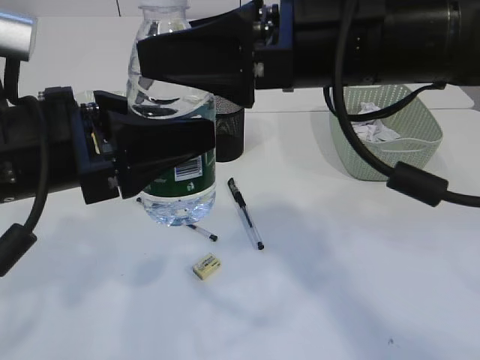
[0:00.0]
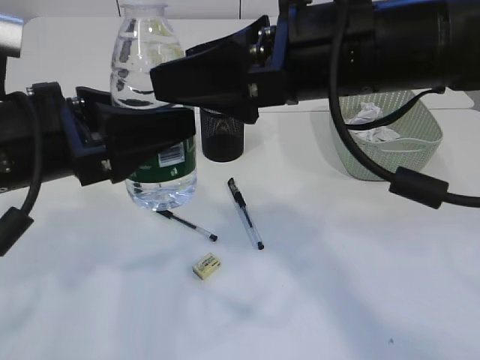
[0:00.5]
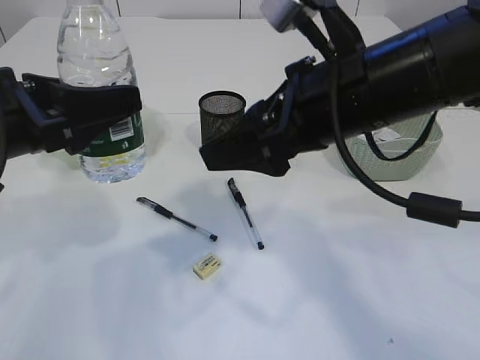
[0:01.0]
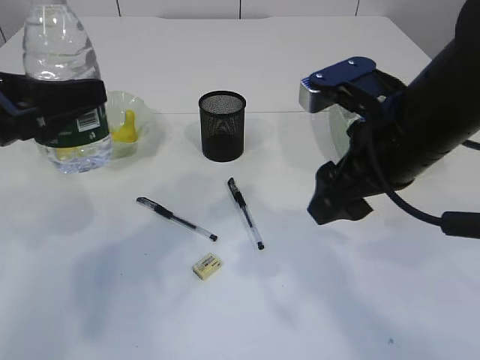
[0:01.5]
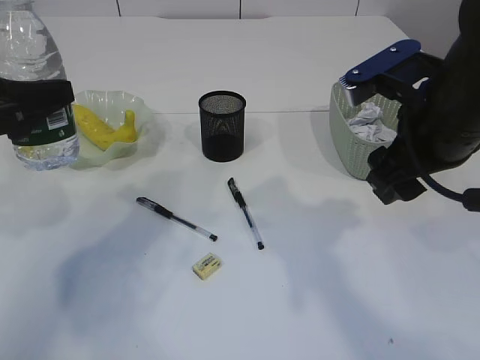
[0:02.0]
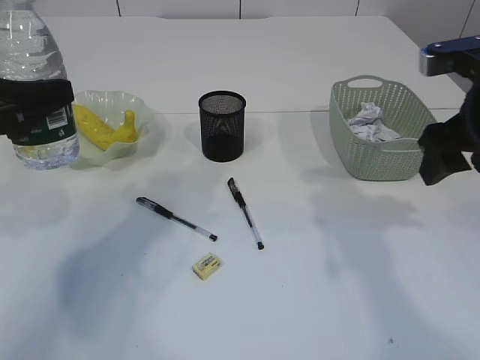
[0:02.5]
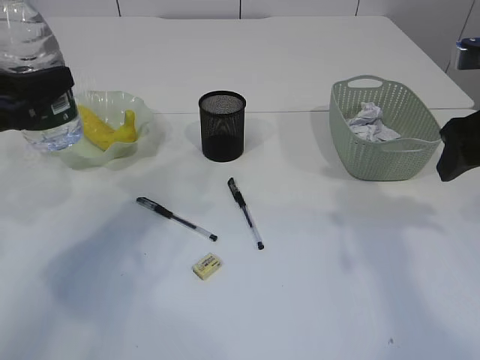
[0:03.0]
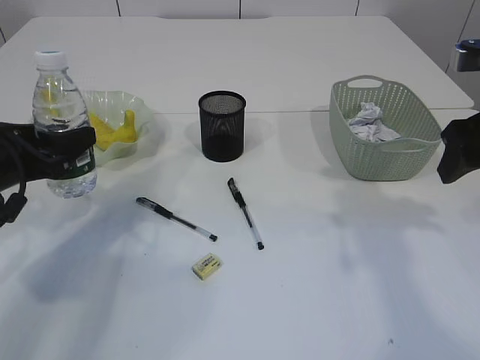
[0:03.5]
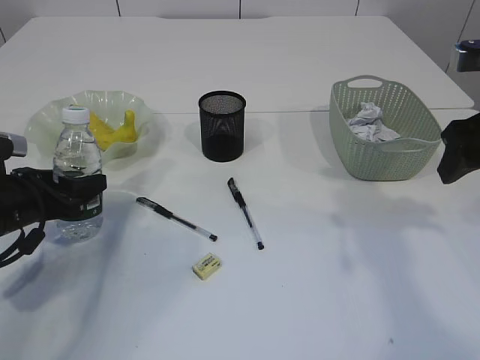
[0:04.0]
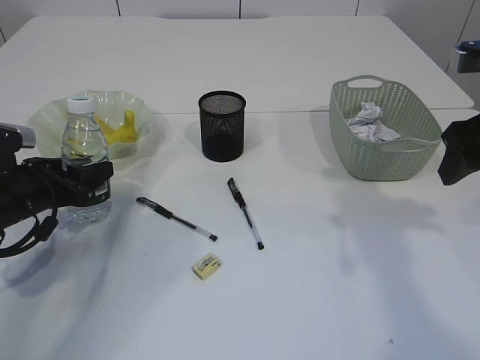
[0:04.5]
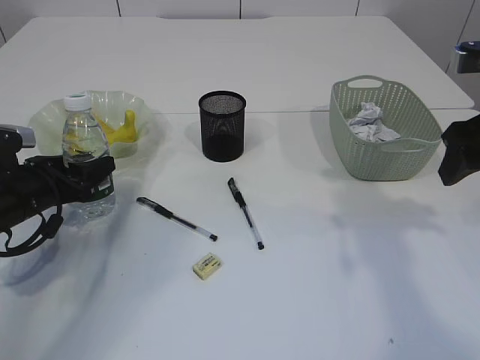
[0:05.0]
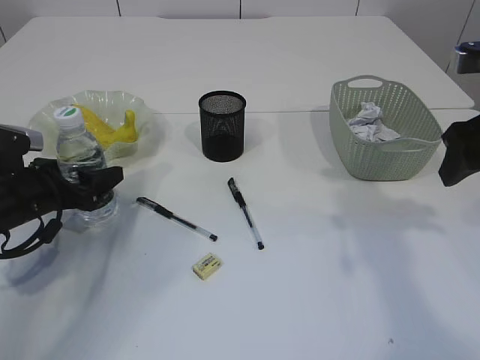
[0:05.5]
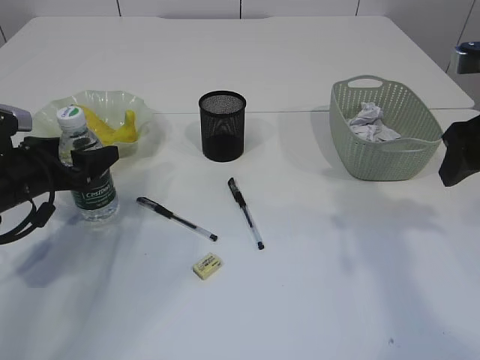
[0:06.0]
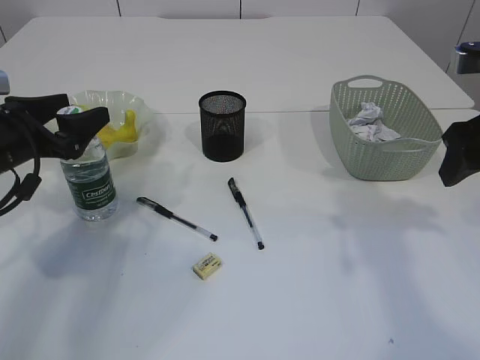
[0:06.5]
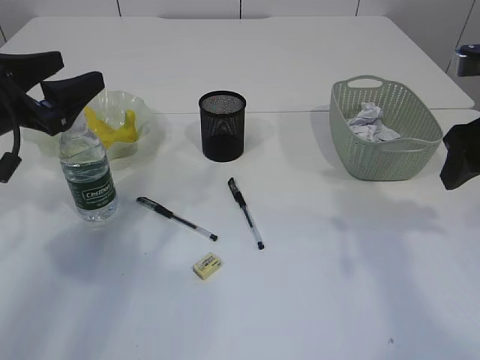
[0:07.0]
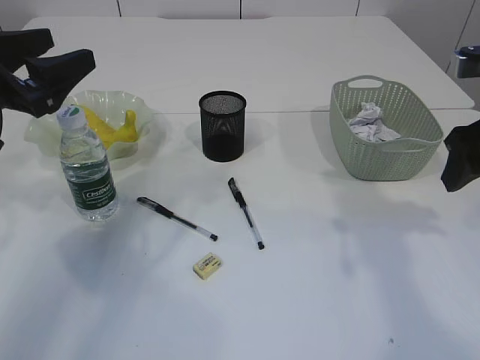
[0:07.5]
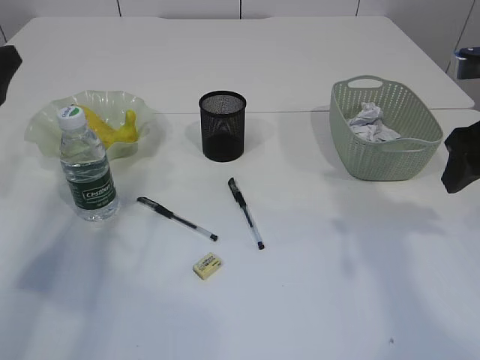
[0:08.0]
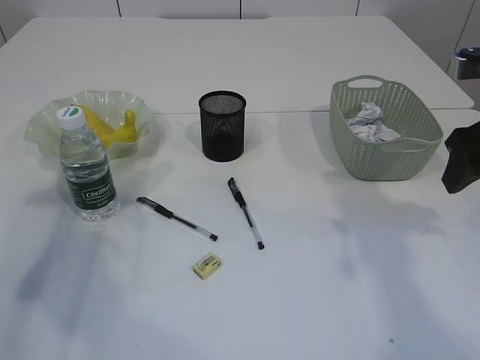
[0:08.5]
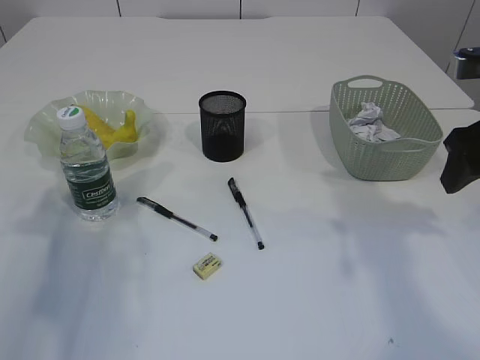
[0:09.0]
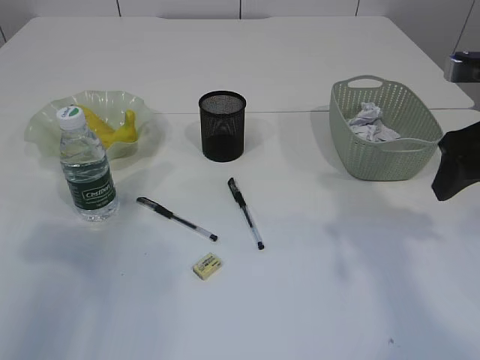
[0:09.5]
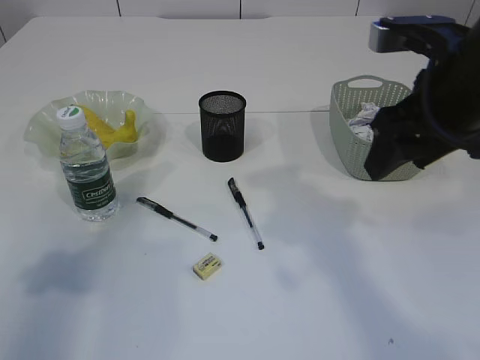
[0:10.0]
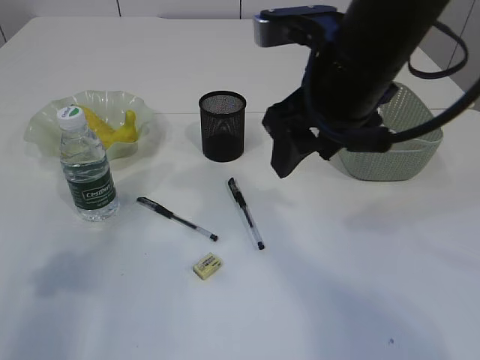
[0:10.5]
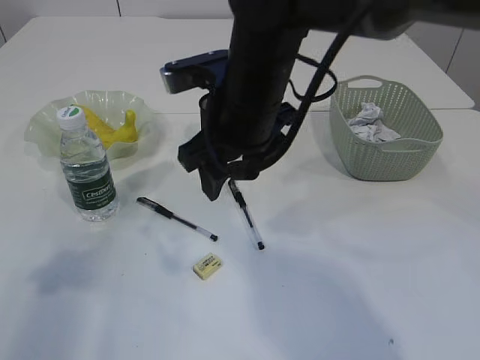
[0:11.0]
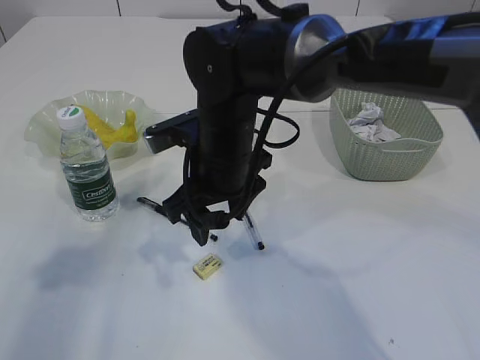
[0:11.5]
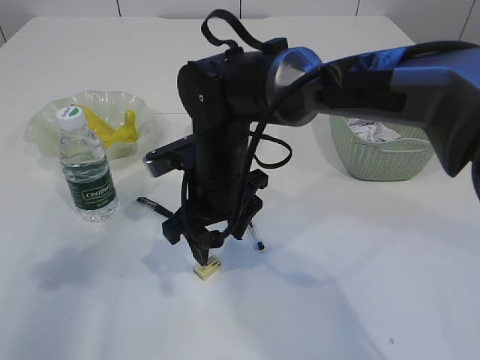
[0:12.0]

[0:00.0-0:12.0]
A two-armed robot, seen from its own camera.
Step, 1.0 to 7.0 s: Place the bottle.
0.0 to 2.0 s: The left gripper moves to the left and forward, roughly 15 cm; the right gripper heads to the right and downward, covering about 10 cm.
2.0 to 4.0 s: The left gripper moves downward, approximately 15 cm, while the right gripper heads to the right, covering some 10 cm.
4.0 to 6.0 s: The left gripper opens its fingers.
6.0 to 8.0 s: The left gripper heads upward, covering some 10 cm.
8.0 to 10.0 s: The left gripper travels backward and upward by some 10 cm; the right gripper goes about 10 cm to the left.
10.0 to 12.0 s: The right gripper goes about 25 cm to the left and downward.

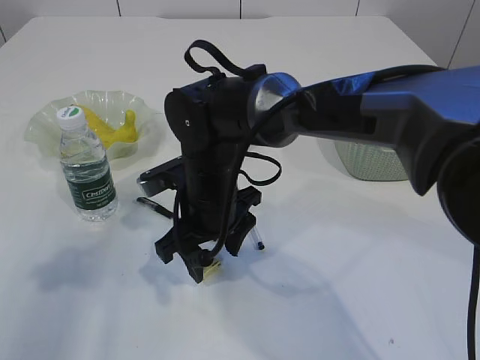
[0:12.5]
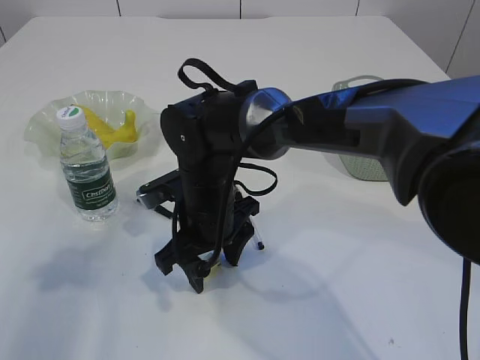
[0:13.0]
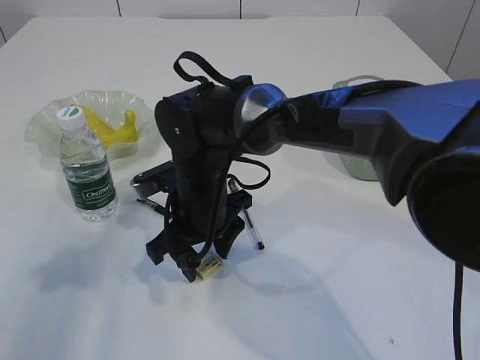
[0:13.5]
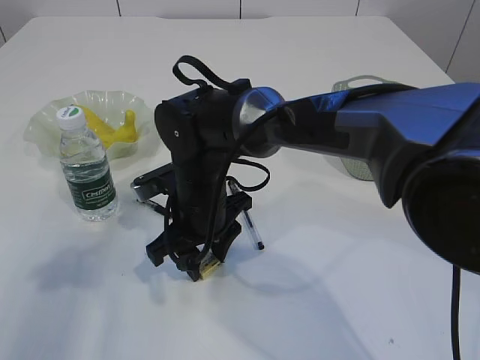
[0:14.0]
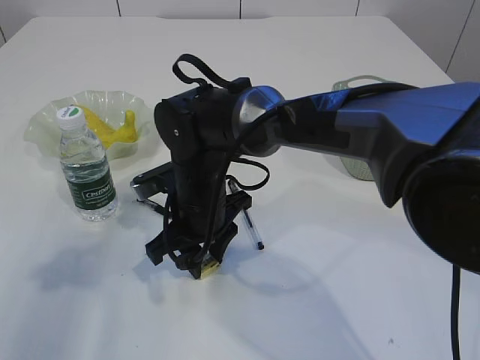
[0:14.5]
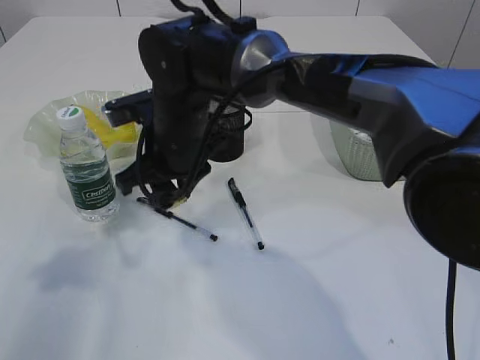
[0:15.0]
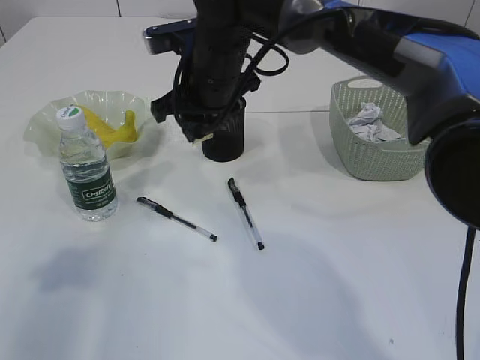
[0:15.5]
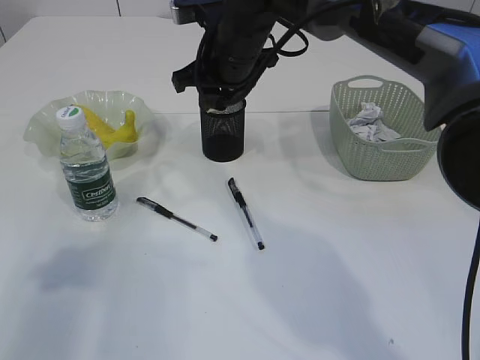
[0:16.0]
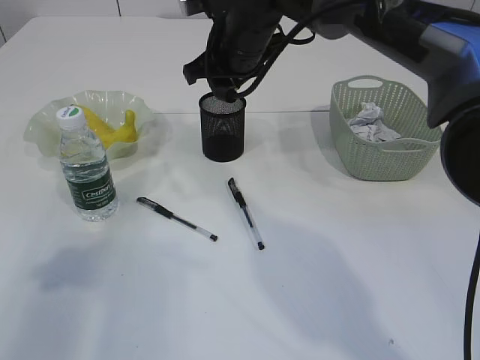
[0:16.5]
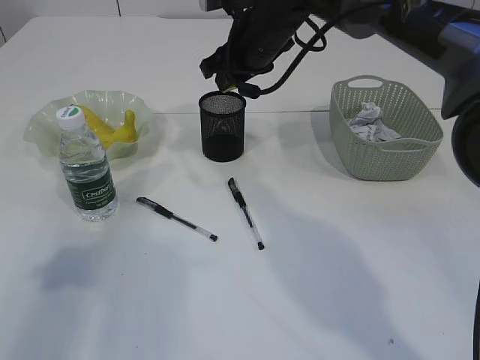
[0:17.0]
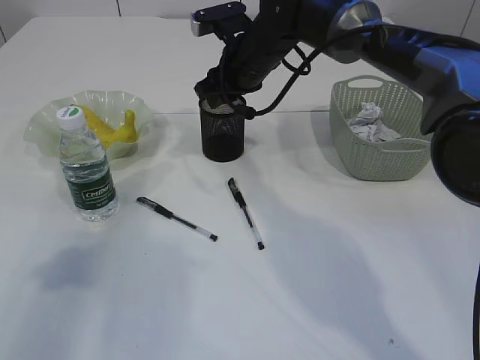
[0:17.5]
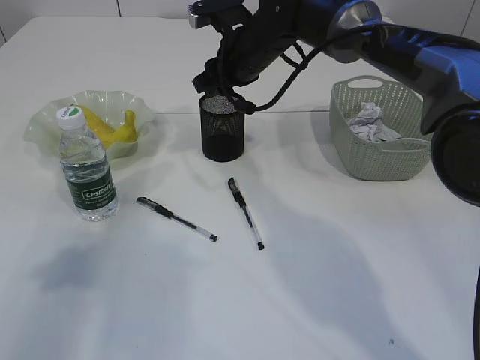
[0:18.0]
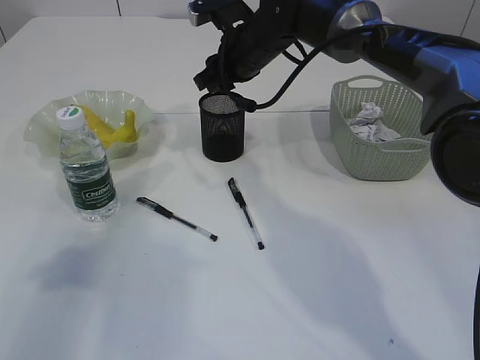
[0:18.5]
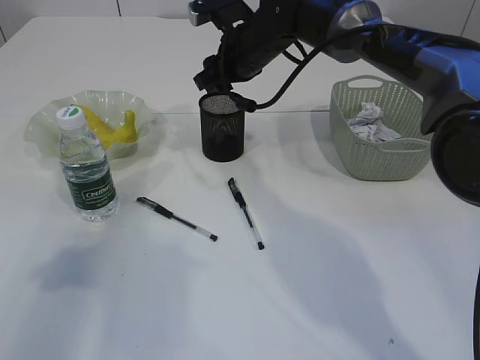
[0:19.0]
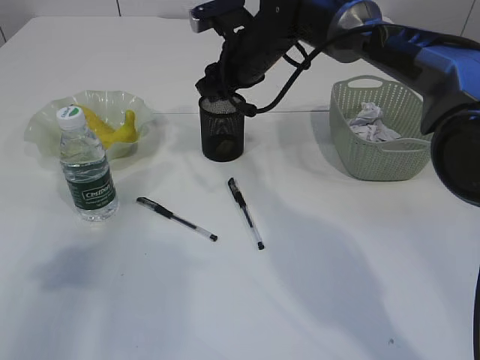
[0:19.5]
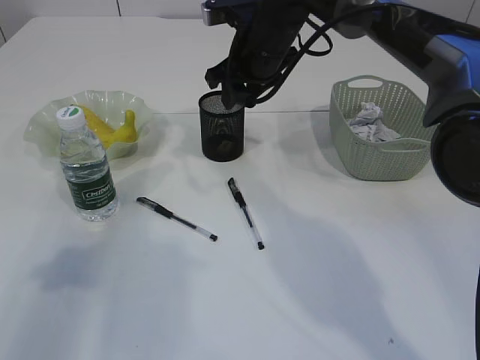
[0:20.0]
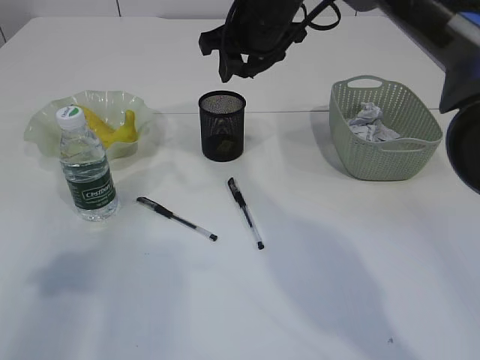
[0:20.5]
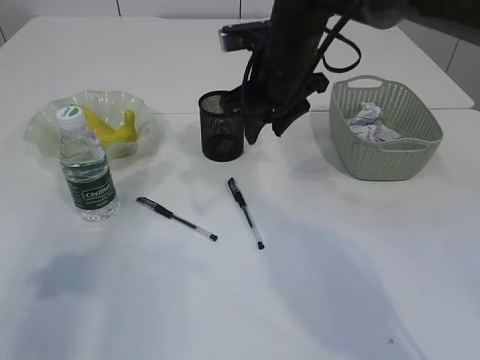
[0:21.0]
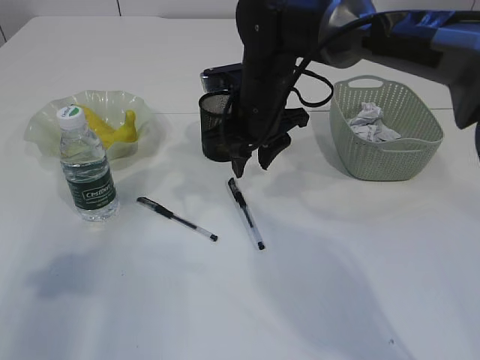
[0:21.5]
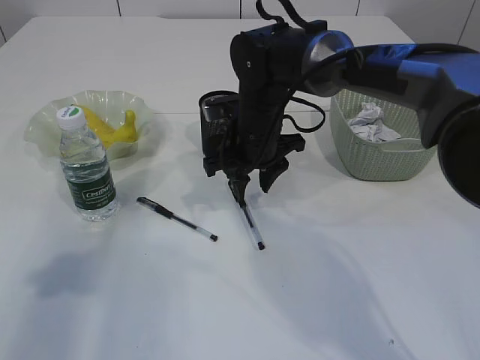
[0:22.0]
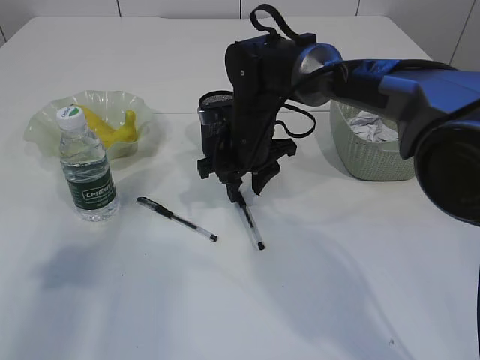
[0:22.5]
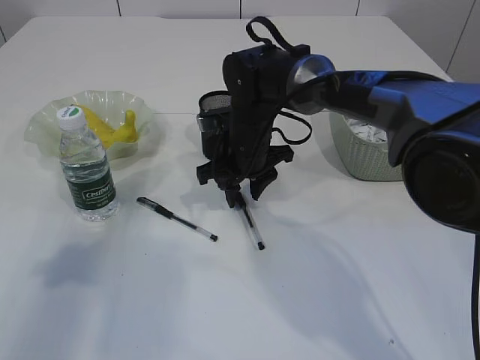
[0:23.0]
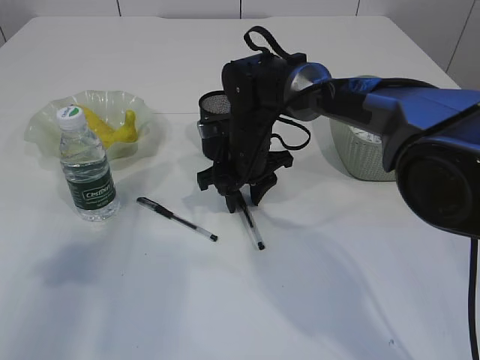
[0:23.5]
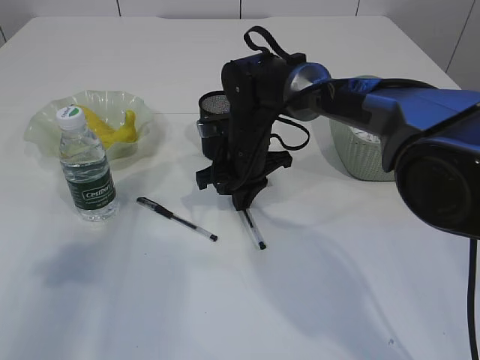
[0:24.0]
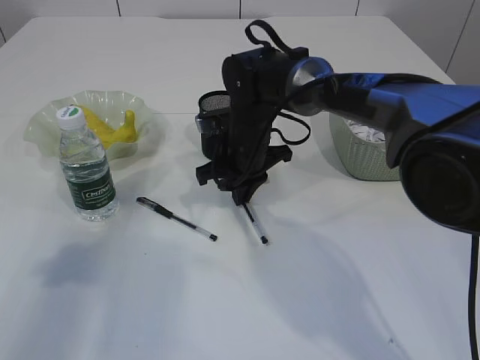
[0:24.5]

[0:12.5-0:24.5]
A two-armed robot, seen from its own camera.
Step, 12.5 to 14.5 s: Pick up the eraser.
Step, 15.0 to 20.0 s: Place the eraser into the pen holder.
12.5 to 14.5 s: The right gripper closes its fingers.
14.5 to 16.5 s: The right gripper shifts about 20 cm upward, forward and to the right.
16.5 to 18.5 s: The right gripper ends up approximately 5 cm from where it was.
18.5 to 20.5 s: The right gripper moves upward, approximately 5 cm.
20.5 to 22.5 s: The right gripper moves downward, about 15 cm.
22.5 to 24.5 s: The right gripper closes up.

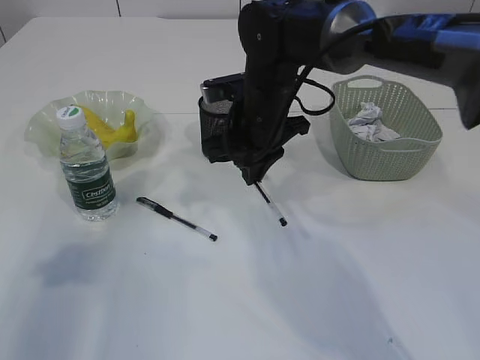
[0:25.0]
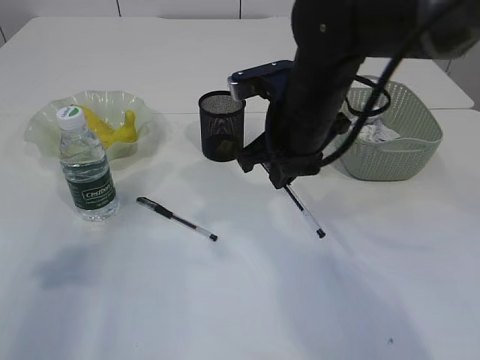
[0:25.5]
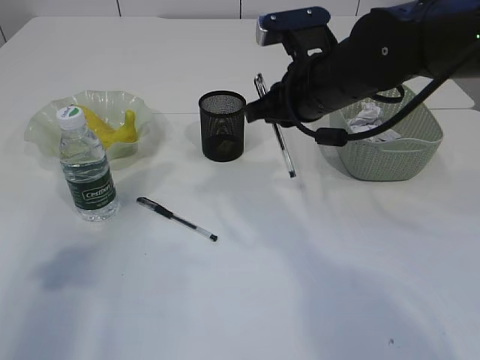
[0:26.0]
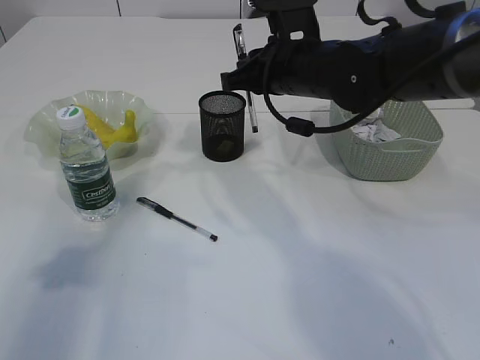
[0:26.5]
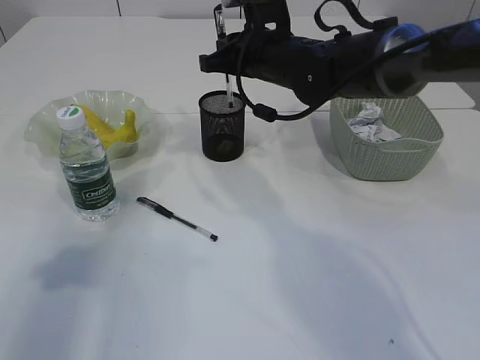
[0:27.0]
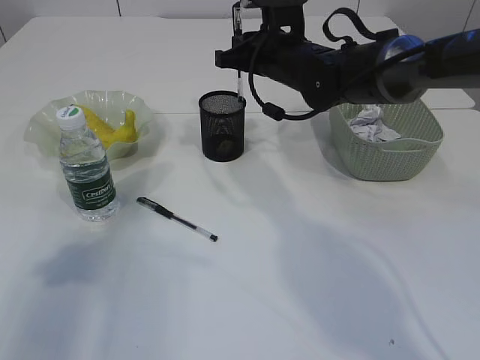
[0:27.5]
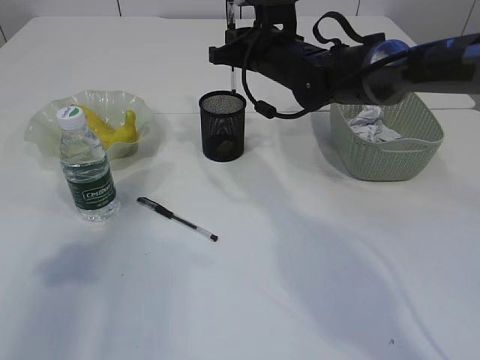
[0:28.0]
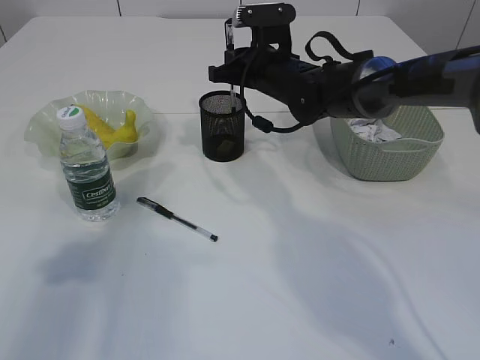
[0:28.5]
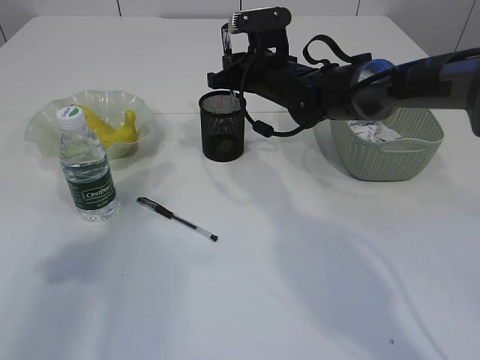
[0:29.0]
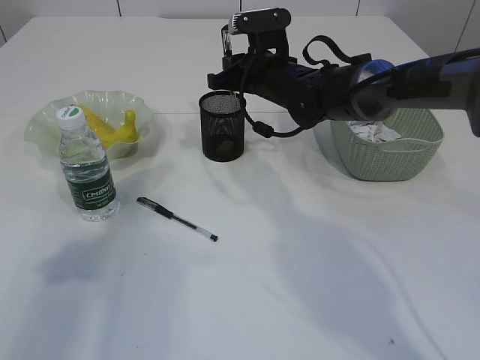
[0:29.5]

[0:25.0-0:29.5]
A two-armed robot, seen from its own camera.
27.0 to 29.5 s: The right gripper changes place by about 5 cm.
